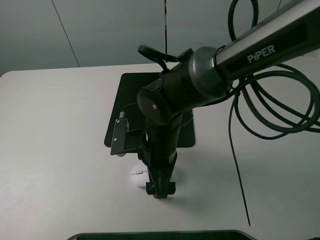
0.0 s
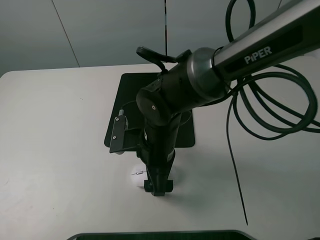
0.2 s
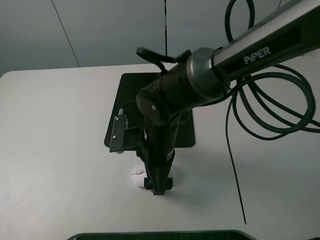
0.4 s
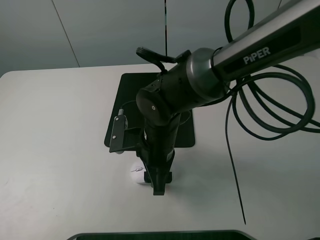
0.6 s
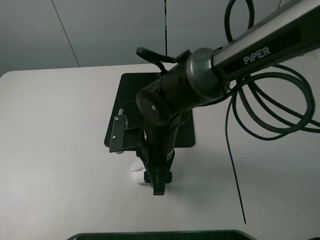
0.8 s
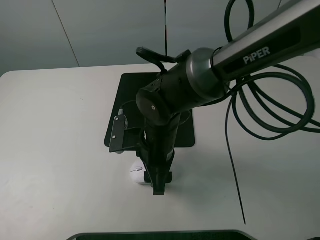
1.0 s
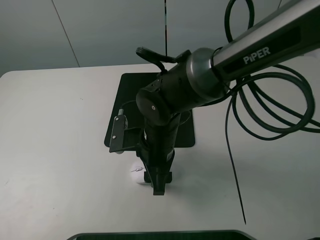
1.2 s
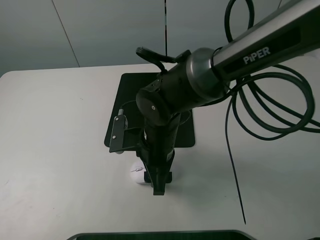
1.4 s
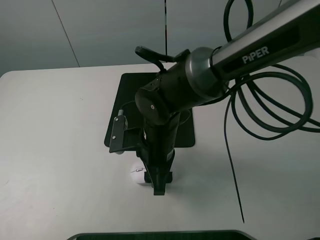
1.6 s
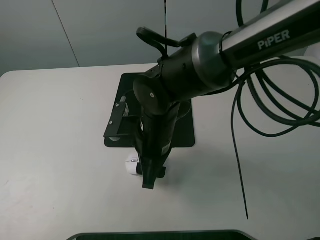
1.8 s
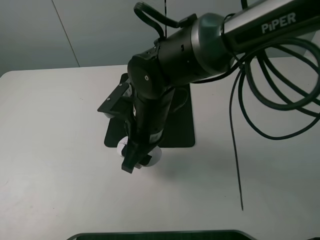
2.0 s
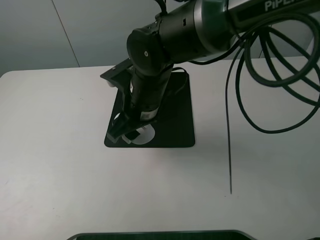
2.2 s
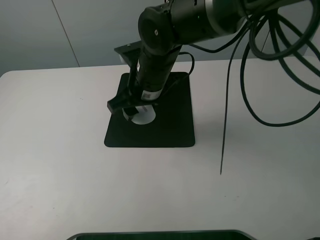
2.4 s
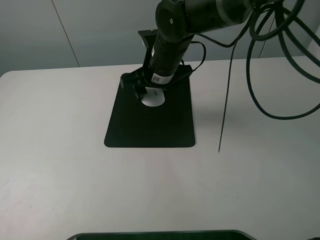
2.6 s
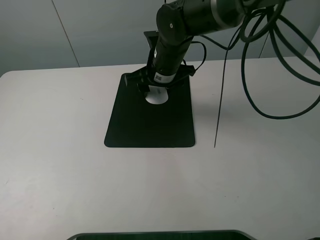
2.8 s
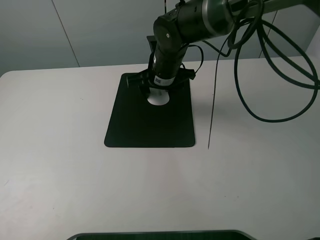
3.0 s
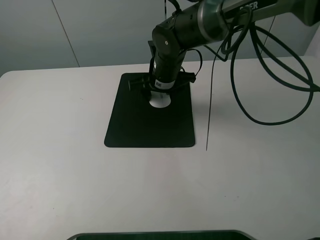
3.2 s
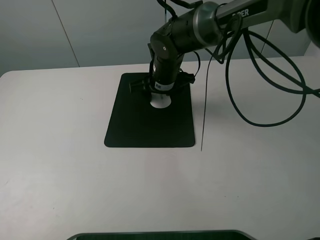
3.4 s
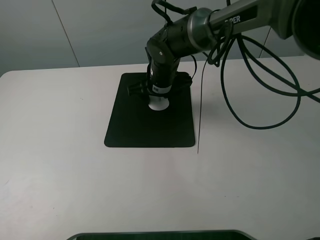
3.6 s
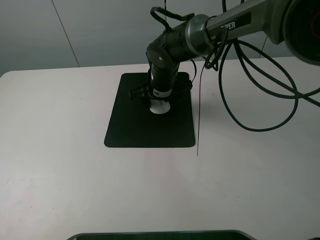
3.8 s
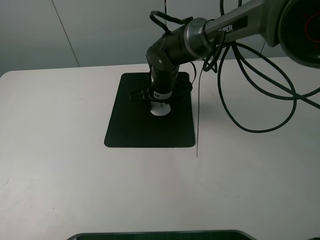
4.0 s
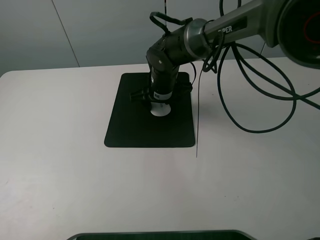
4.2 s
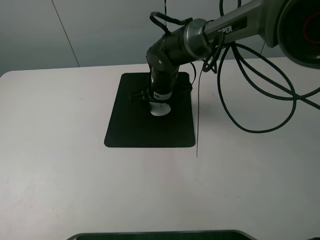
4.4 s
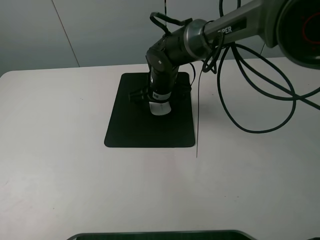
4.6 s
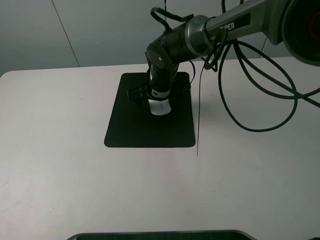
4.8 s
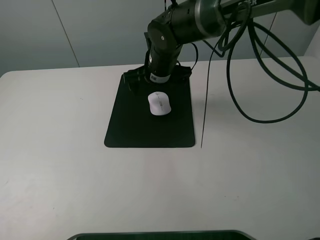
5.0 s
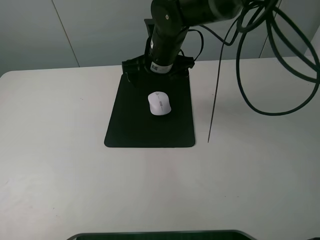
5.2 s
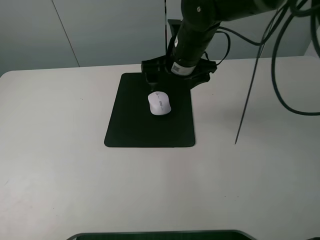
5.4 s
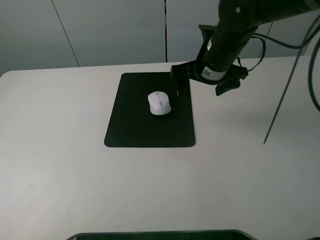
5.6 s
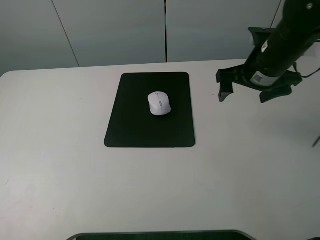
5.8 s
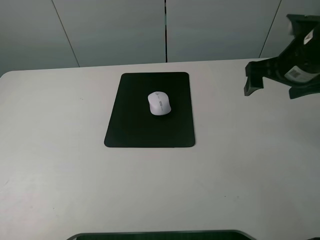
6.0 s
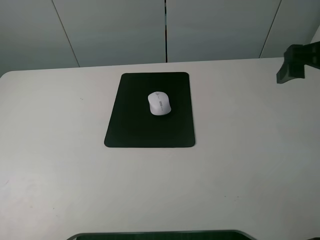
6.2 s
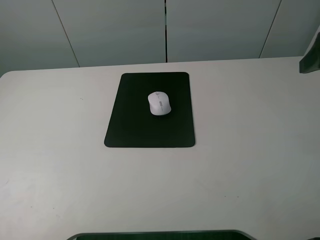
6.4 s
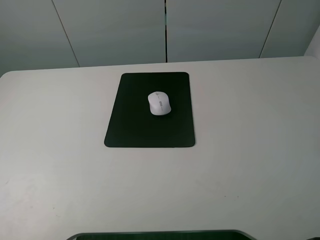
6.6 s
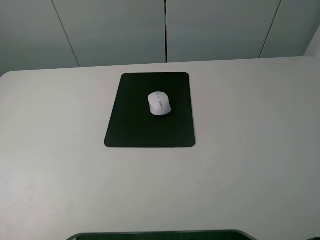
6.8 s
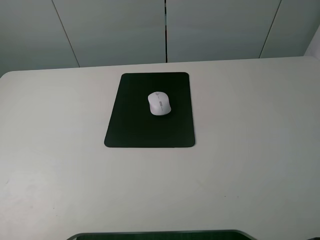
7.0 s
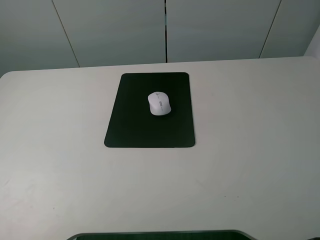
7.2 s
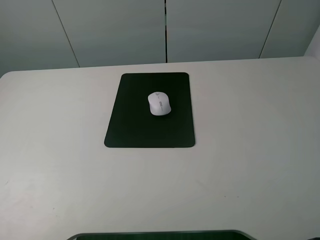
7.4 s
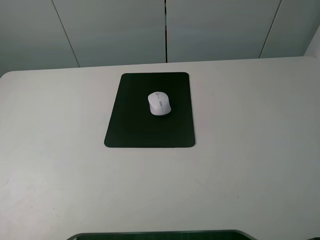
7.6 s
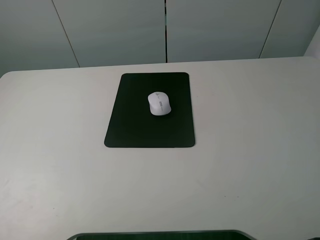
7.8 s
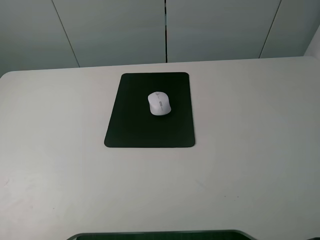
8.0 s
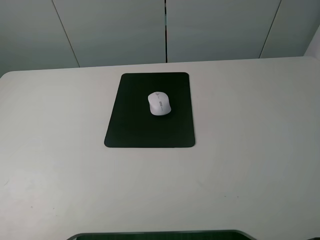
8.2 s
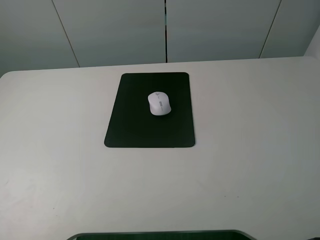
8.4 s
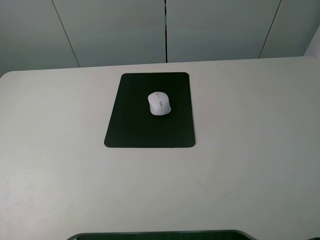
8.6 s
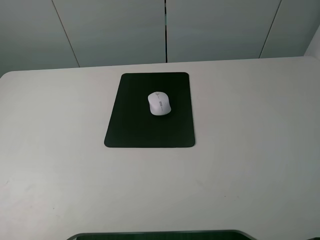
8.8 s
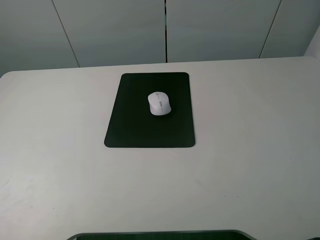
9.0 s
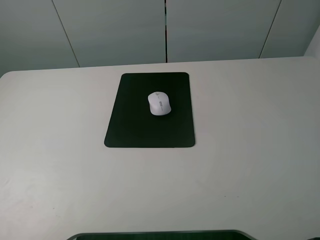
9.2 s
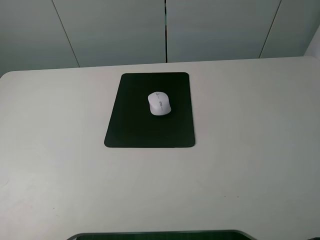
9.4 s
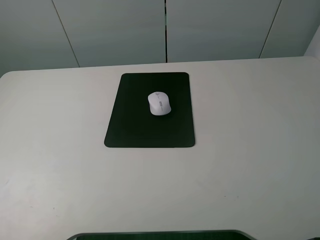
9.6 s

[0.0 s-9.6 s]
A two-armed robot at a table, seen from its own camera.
Step, 1.8 to 4.6 s: Place the mouse on the mouse mat with the right gripper.
0.0 to 1.6 s: The right gripper closes up.
1.6 to 3.2 s: The right gripper shifts some 15 cm forward.
3.2 to 4.8 s: The right gripper opens.
4.8 to 6.4 s: The right gripper goes about 40 cm to the right, upward and backward.
6.4 to 8.0 s: The right gripper travels backward by approximately 20 cm.
